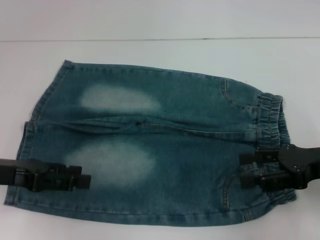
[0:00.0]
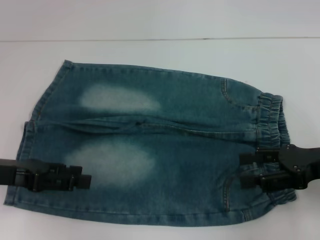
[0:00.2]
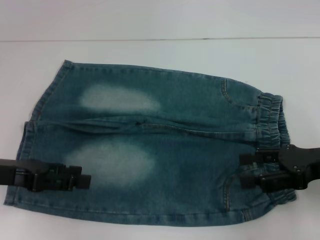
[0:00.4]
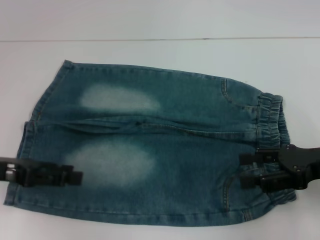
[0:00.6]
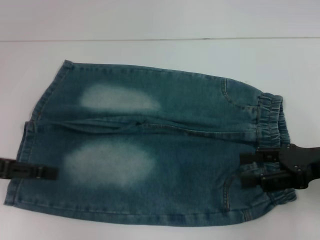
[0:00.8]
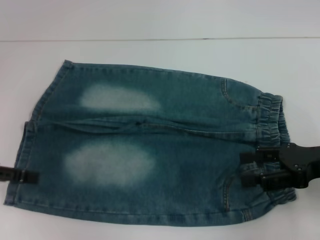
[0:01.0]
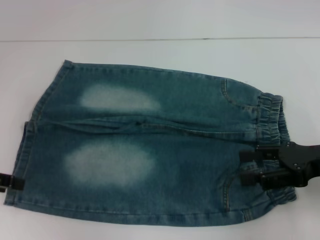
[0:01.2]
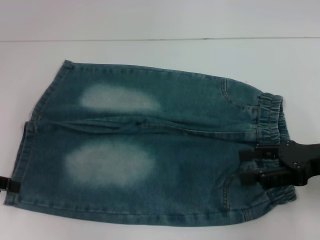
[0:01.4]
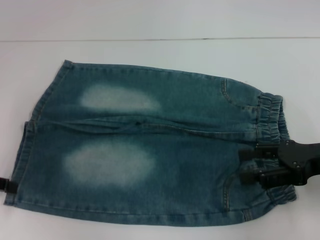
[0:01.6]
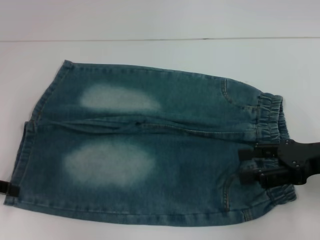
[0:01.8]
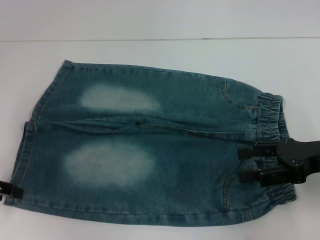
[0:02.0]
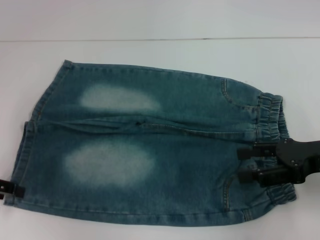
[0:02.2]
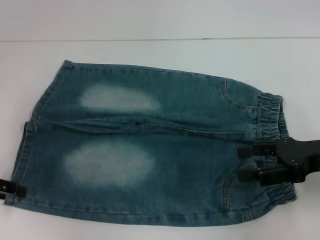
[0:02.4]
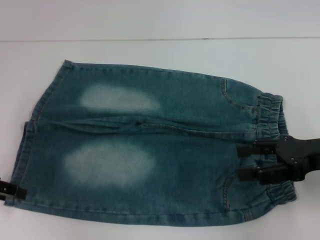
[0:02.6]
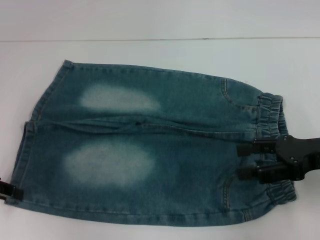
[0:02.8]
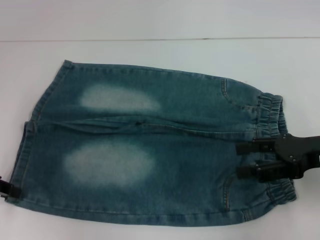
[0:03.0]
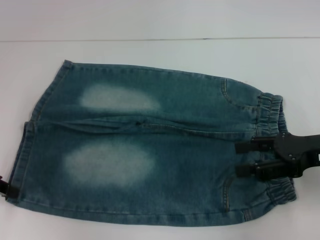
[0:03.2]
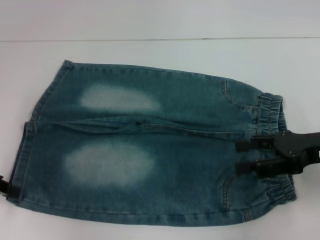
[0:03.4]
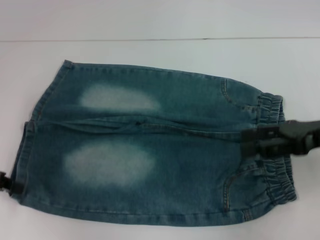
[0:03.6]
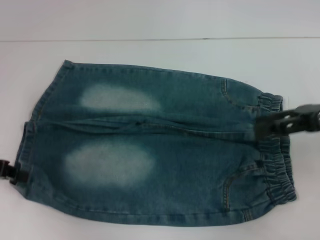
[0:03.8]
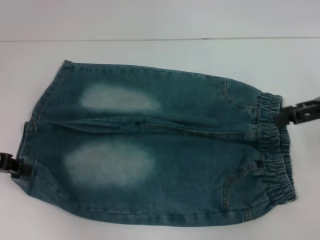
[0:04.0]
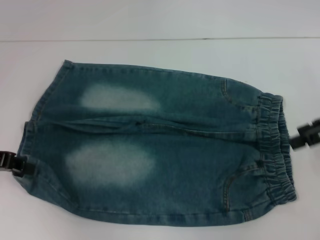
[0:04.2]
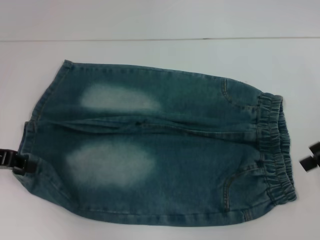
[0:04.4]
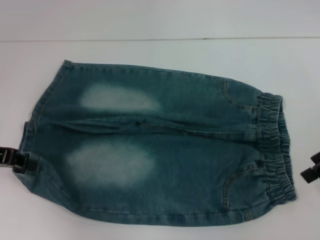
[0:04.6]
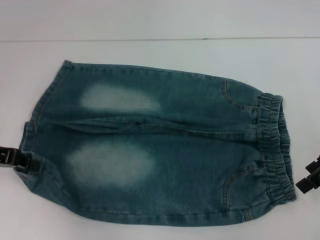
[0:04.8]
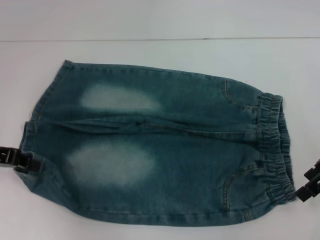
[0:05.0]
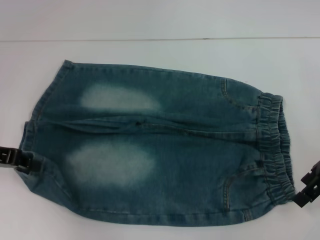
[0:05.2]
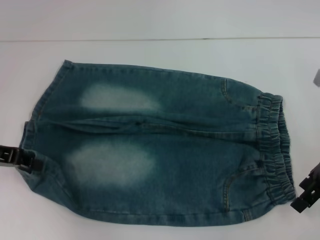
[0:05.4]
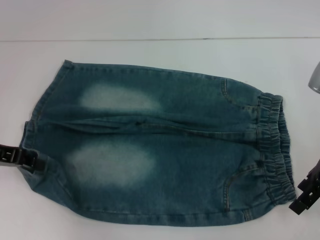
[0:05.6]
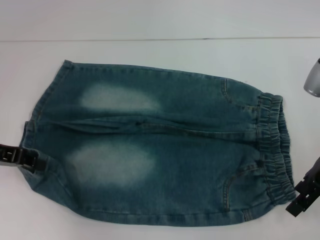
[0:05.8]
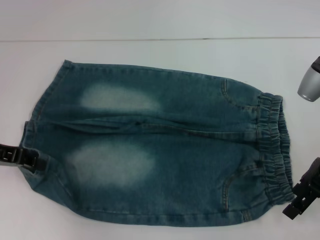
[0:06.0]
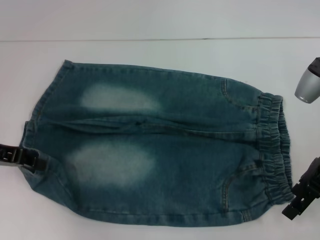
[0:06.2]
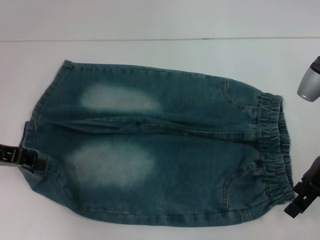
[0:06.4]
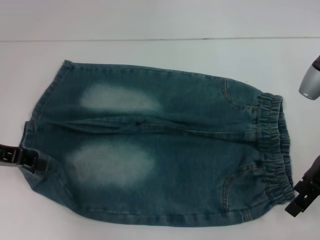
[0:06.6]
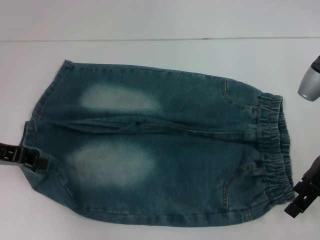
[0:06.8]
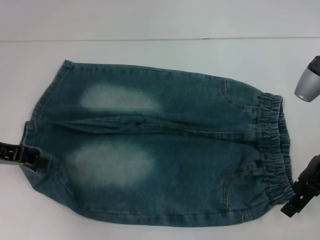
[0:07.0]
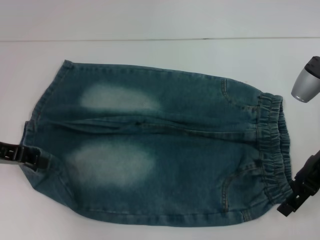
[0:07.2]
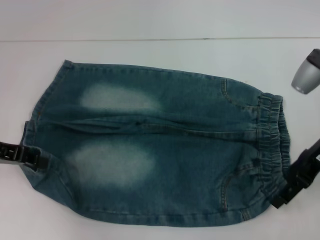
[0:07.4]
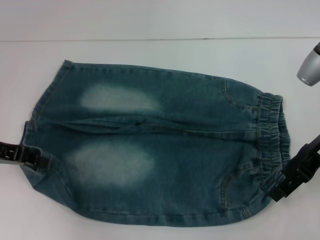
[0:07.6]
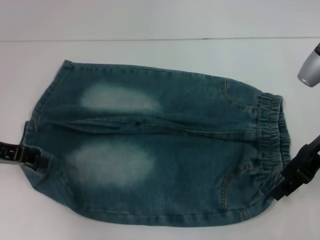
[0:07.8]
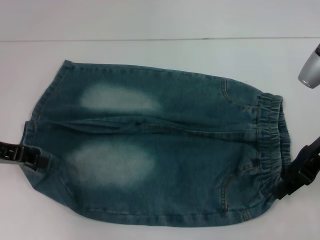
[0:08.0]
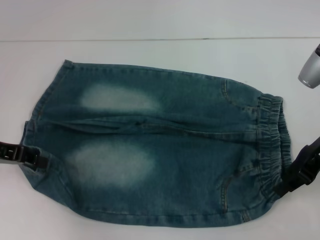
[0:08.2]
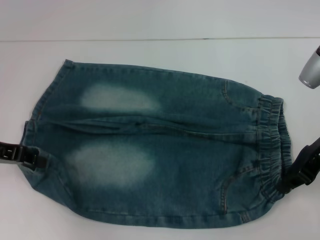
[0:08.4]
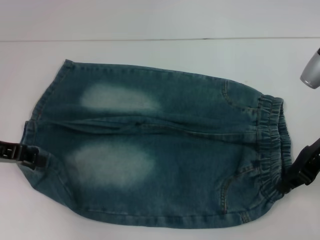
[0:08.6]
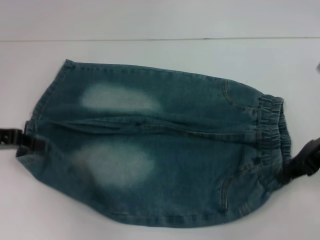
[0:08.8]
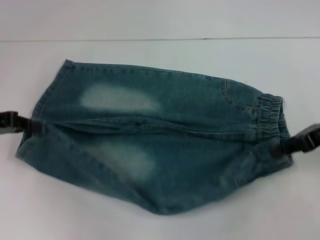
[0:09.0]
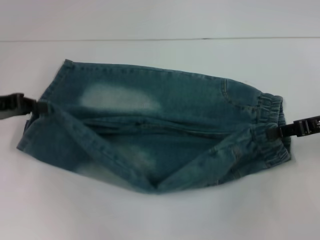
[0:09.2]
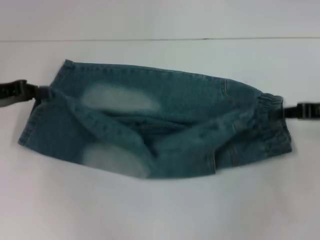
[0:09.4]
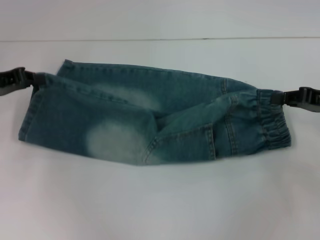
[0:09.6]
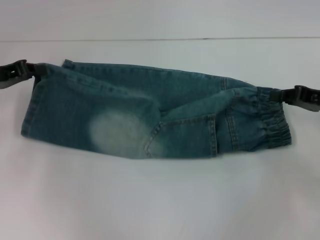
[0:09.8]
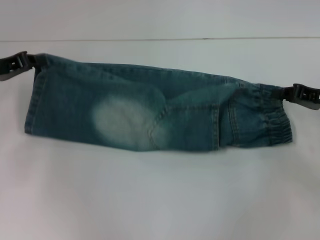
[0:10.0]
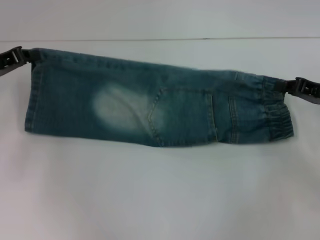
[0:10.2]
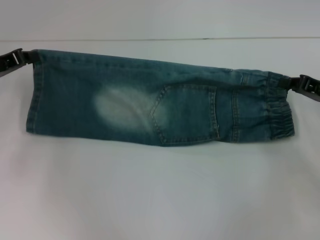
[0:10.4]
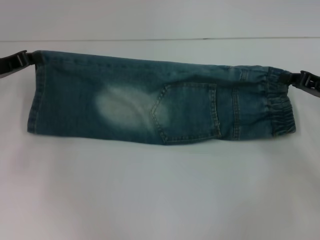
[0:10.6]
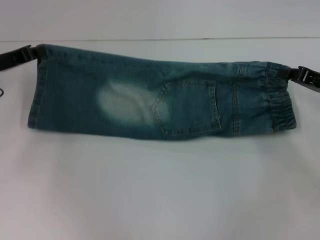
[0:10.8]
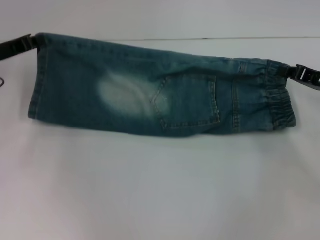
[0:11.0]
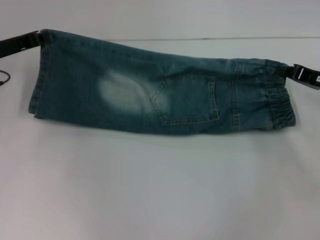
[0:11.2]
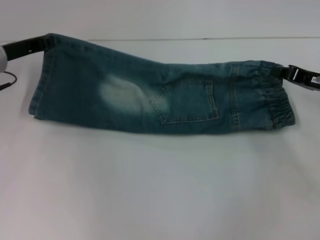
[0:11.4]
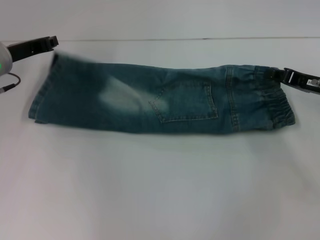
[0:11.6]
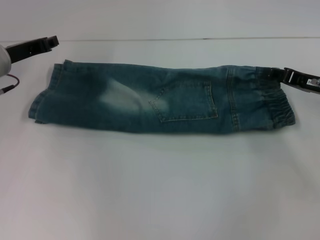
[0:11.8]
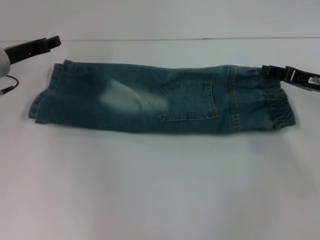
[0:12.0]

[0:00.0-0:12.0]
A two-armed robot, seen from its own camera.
Step, 0:00.0 to 0:03.6: Grab the lower left pant leg with your left hand.
Step, 0:04.0 to 0:08.6: Hold the lower right waistband with your right hand.
0:00.0 to 0:01.6: The left gripper is displaced to the left by approximately 5 cm.
0:01.6 to 0:03.0: There are only small adjustments of the grippers.
0:03.0 to 0:04.4: The right gripper shifts roughly 5 cm upward. Meanwhile the left gripper closes up.
0:04.4 to 0:06.0: The right gripper shifts roughly 5 cm to the left.
0:06.0 to 0:07.6: There are only small adjustments of the grippers.
0:07.6 to 0:09.0: The right gripper closes up.
0:09.0 to 0:10.4: The left gripper is displaced forward by approximately 5 cm. The right gripper moves downward, roughly 5 cm.
0:10.4 to 0:12.0: The right gripper opens; the left gripper shifts by some 5 cm.

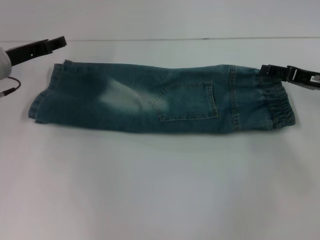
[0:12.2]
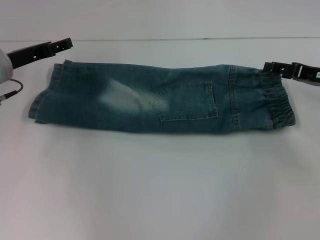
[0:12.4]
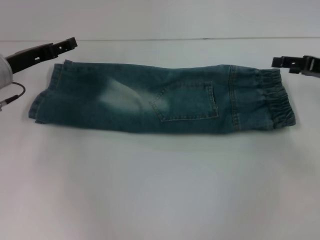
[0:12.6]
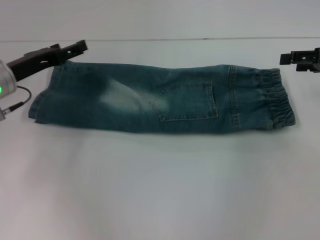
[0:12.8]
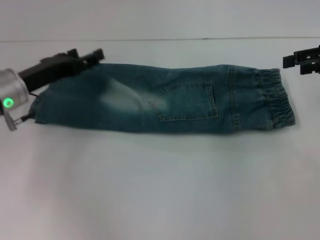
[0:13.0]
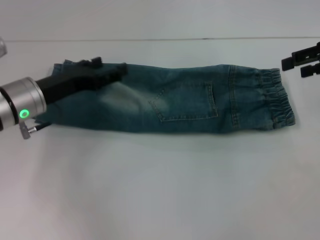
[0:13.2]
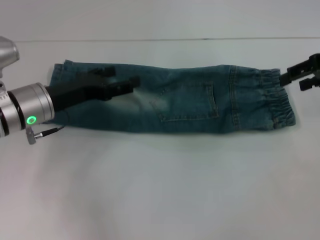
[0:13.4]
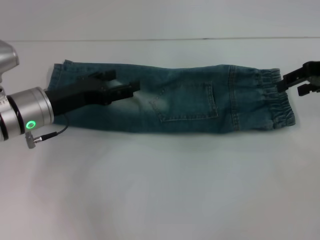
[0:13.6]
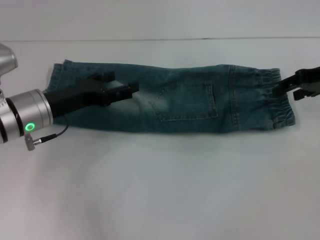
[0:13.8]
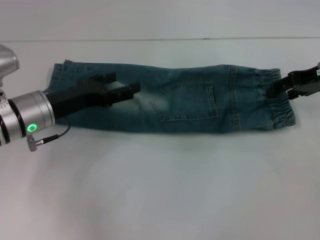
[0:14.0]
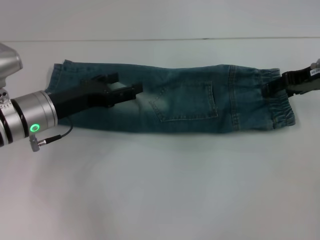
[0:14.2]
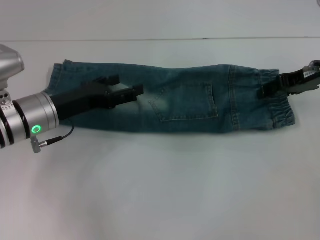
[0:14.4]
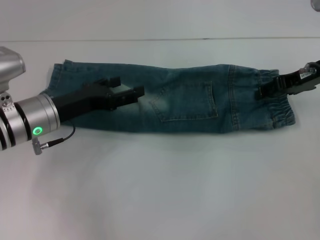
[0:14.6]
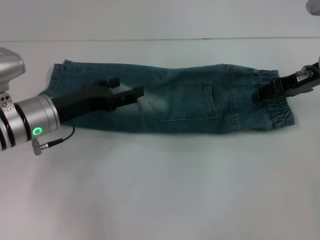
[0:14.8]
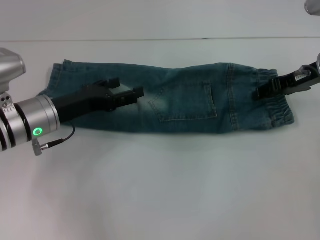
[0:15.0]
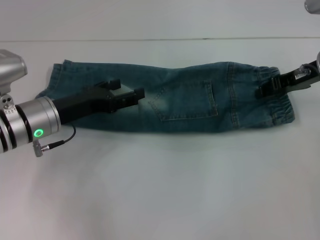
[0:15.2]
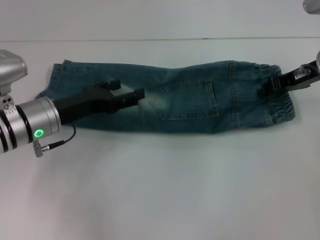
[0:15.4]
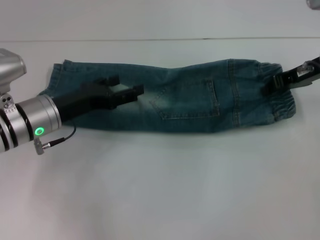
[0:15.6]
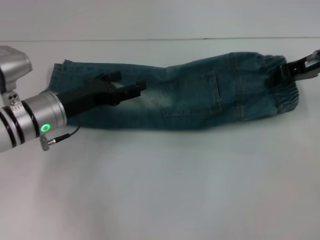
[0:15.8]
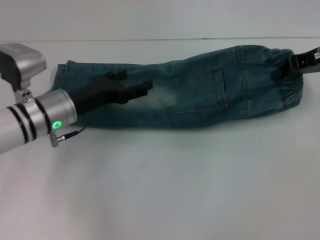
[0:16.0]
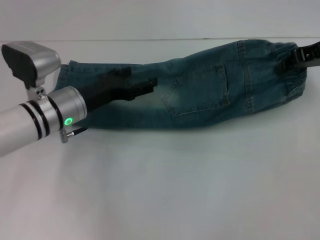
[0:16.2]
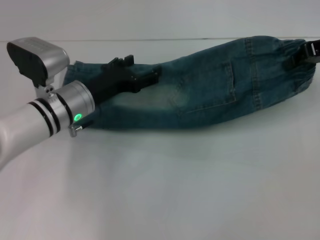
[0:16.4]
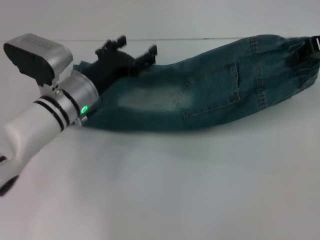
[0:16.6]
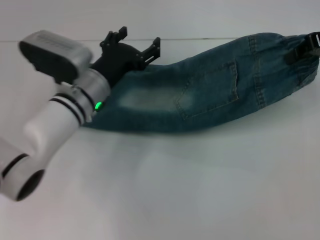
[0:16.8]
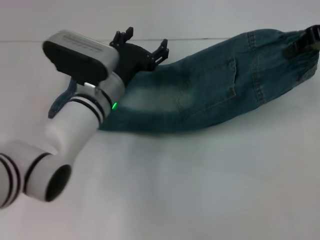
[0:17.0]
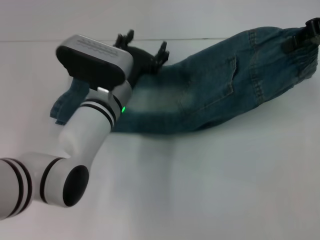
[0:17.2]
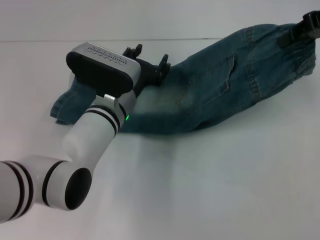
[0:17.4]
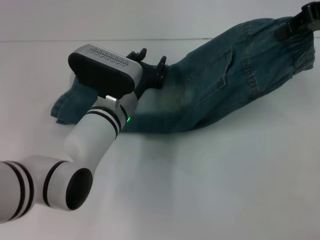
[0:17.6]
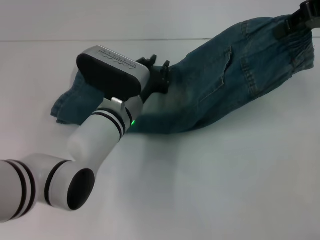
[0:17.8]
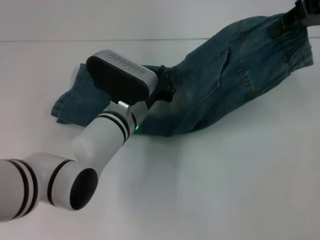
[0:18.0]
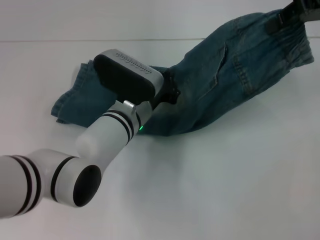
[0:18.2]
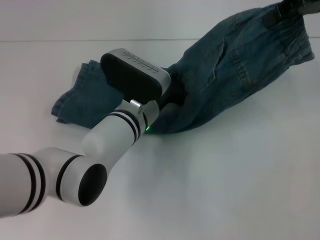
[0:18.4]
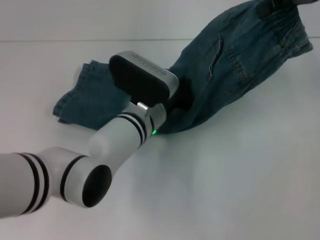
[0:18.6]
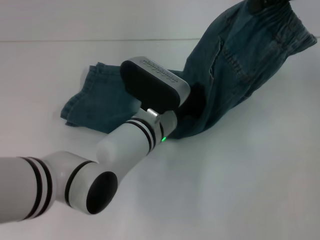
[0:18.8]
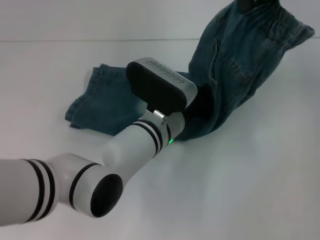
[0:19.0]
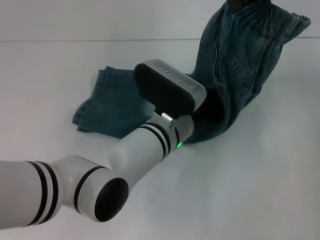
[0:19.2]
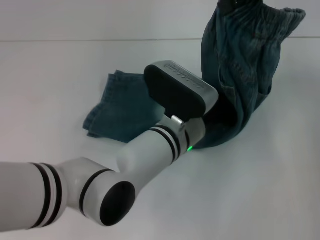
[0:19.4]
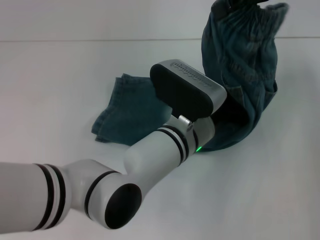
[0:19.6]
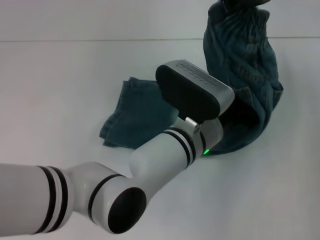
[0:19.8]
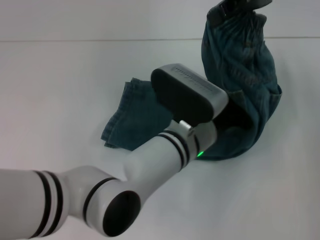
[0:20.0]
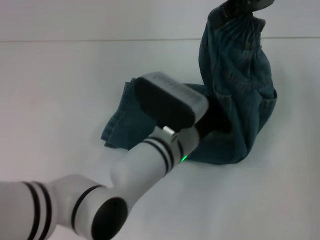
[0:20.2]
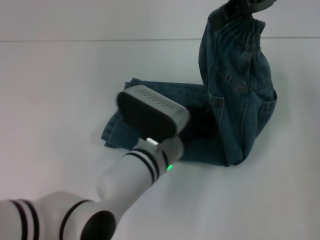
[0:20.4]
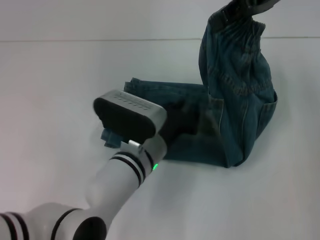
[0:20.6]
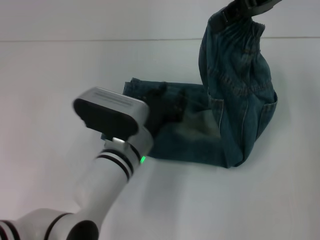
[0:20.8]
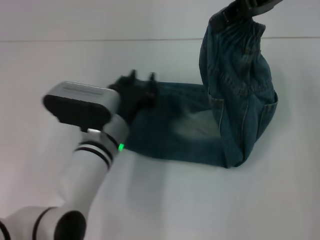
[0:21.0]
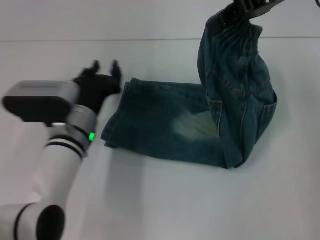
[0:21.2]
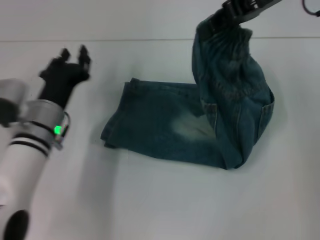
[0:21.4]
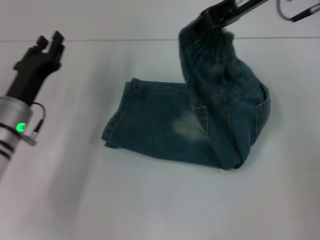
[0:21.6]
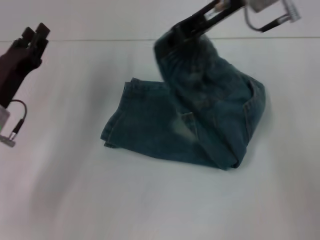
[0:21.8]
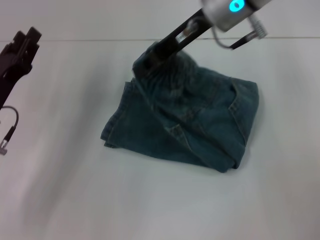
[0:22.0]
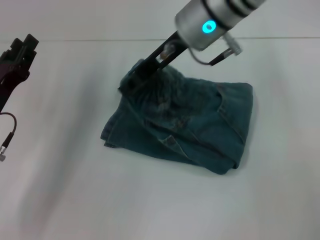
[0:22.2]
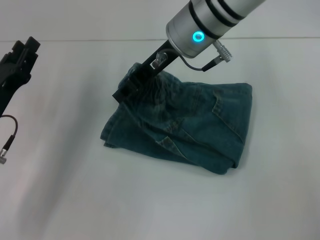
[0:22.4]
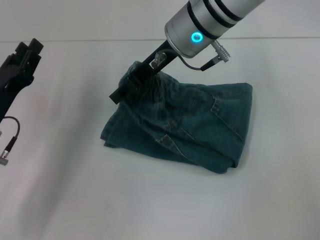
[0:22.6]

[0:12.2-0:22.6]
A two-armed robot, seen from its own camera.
Step, 0:12.2 to 0:15.8: Grab the waistband with your right hand.
Step, 0:16.2 to 0:20.4: Press the middle of the pants with your left hand.
0:12.2 to 0:13.6: The right gripper travels upward by roughly 10 cm. Meanwhile the left gripper shifts some 10 cm backward and to the right, and opens.
0:13.6 to 0:15.2: The right gripper changes place by roughly 5 cm.
0:15.2 to 0:16.6: The right gripper goes approximately 10 cm upward, and closes; the left gripper shifts roughly 5 cm to the right.
0:16.6 to 0:18.2: The left gripper heads to the right, covering about 10 cm, and closes its fingers; the right gripper travels upward by about 5 cm.
0:18.2 to 0:19.6: The left gripper heads to the right, covering about 10 cm, while the right gripper shifts some 5 cm to the left.
0:19.6 to 0:21.2: The left gripper heads to the left, covering roughly 15 cm, and opens up.
0:21.2 to 0:22.6: The right gripper goes some 20 cm to the left and downward. The left gripper heads to the left, covering roughly 15 cm.
